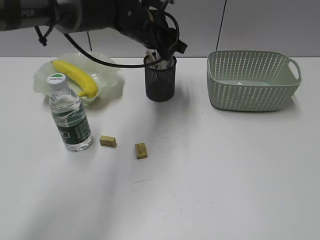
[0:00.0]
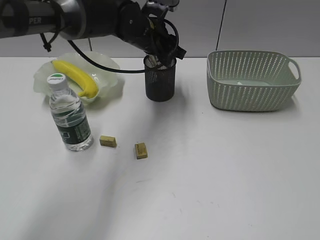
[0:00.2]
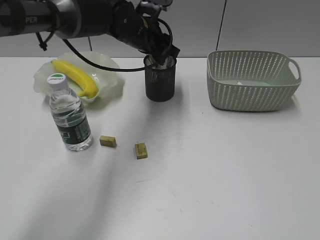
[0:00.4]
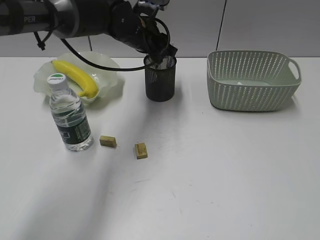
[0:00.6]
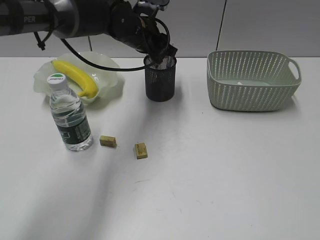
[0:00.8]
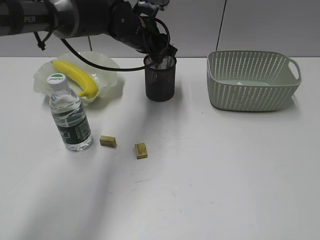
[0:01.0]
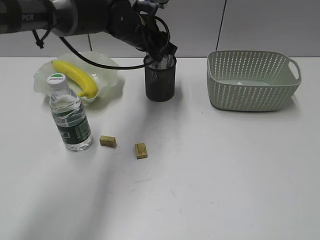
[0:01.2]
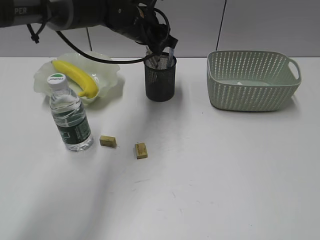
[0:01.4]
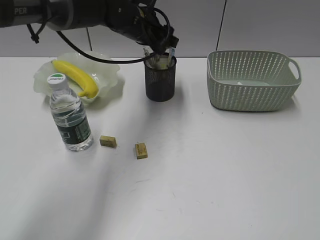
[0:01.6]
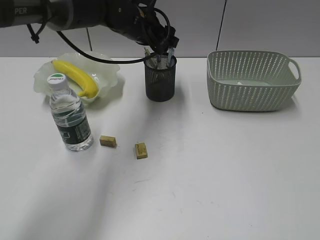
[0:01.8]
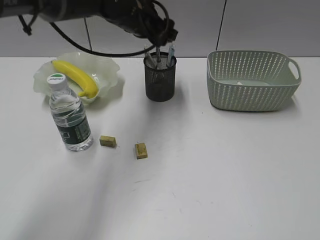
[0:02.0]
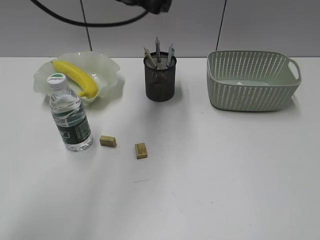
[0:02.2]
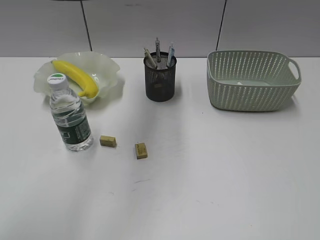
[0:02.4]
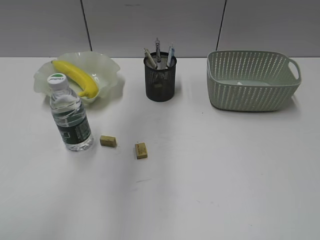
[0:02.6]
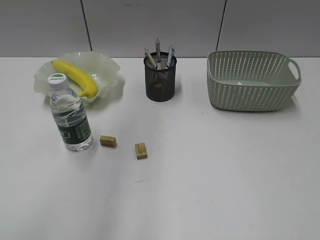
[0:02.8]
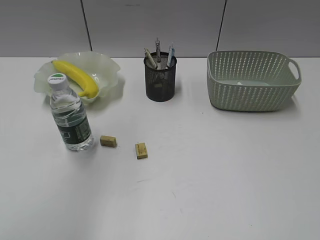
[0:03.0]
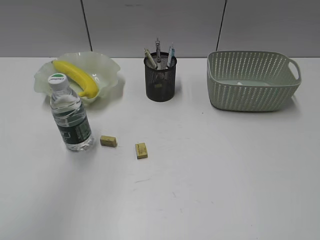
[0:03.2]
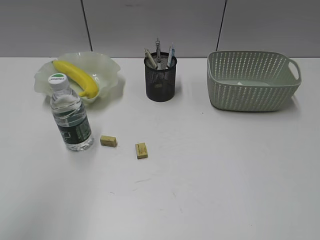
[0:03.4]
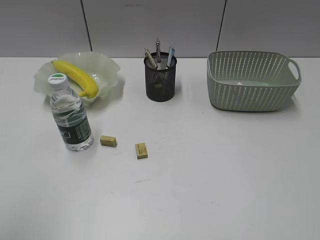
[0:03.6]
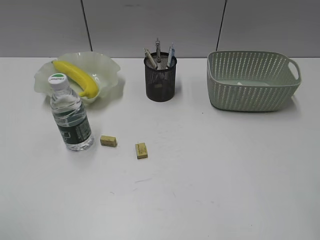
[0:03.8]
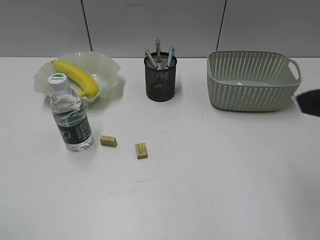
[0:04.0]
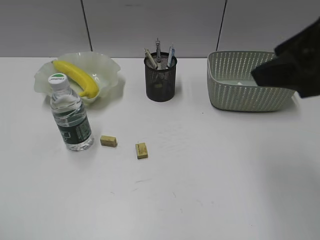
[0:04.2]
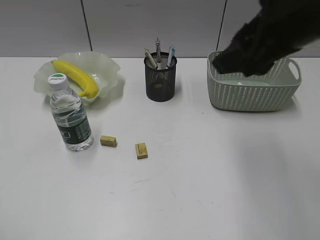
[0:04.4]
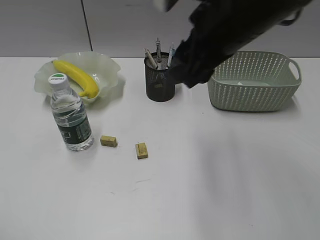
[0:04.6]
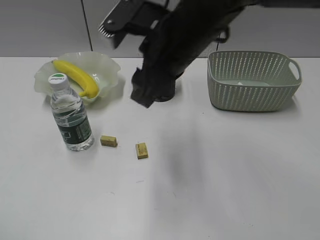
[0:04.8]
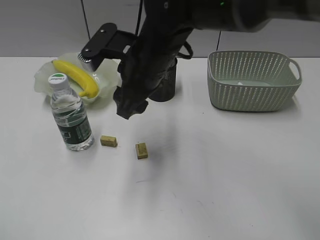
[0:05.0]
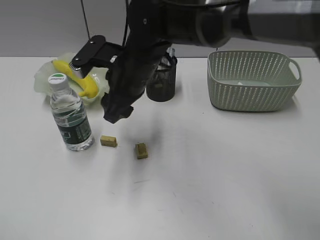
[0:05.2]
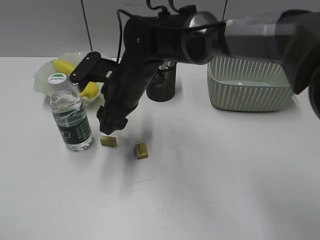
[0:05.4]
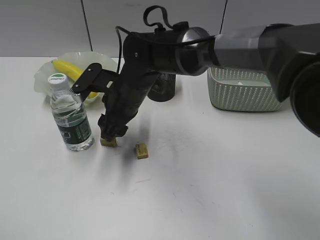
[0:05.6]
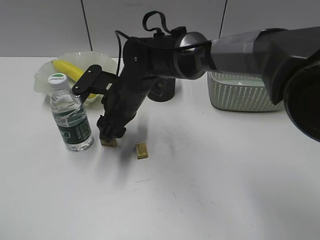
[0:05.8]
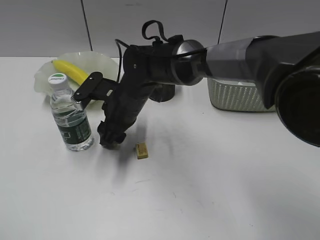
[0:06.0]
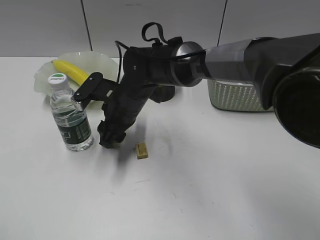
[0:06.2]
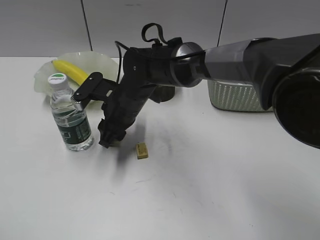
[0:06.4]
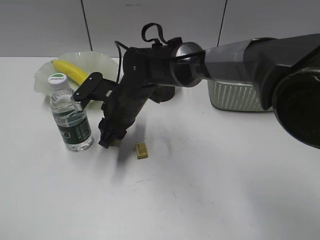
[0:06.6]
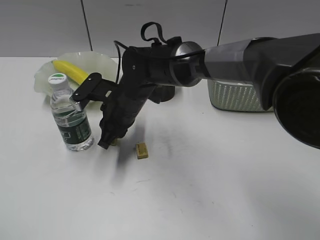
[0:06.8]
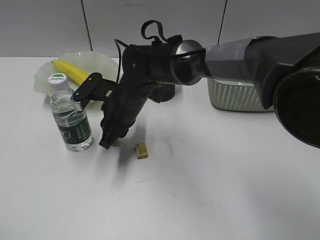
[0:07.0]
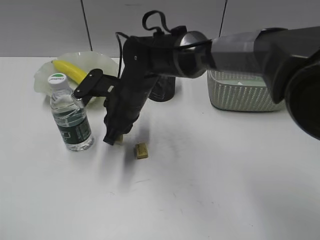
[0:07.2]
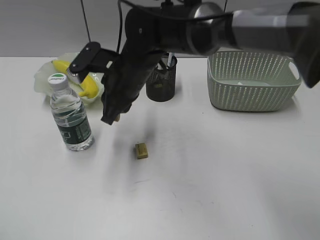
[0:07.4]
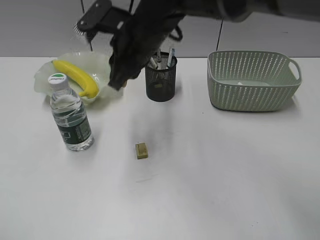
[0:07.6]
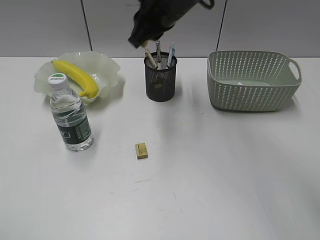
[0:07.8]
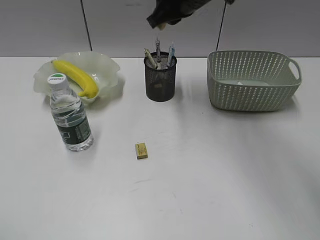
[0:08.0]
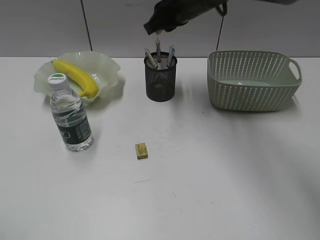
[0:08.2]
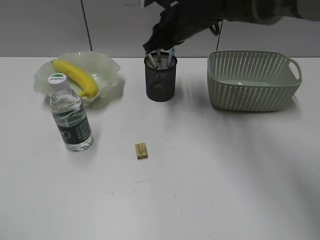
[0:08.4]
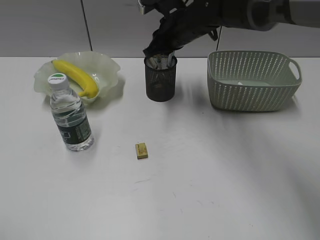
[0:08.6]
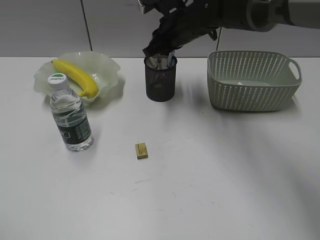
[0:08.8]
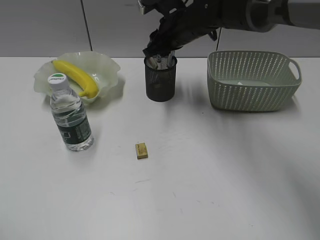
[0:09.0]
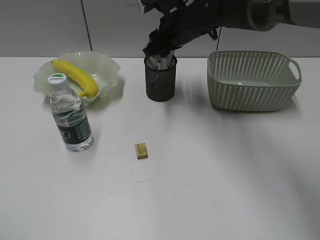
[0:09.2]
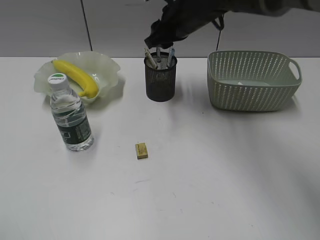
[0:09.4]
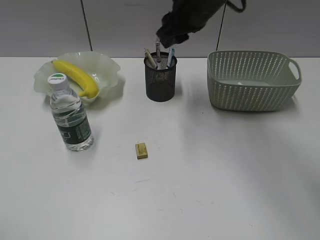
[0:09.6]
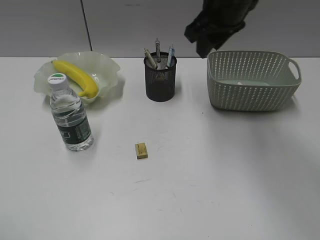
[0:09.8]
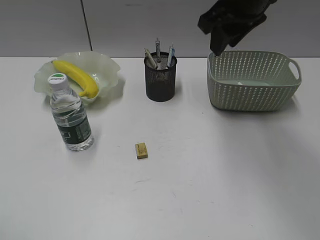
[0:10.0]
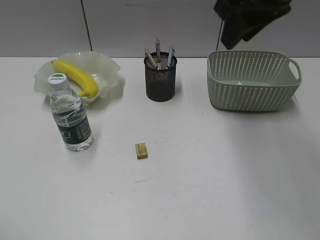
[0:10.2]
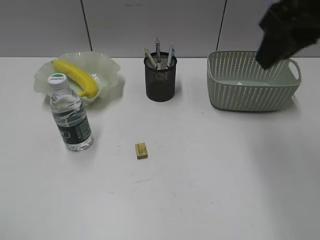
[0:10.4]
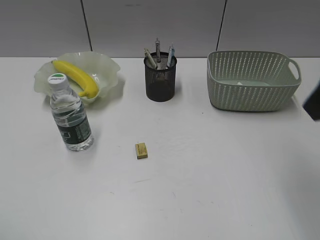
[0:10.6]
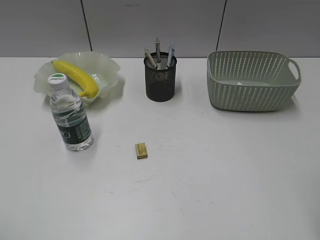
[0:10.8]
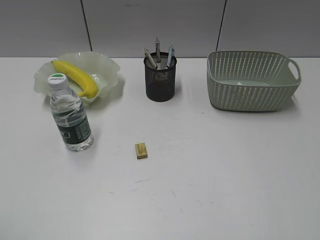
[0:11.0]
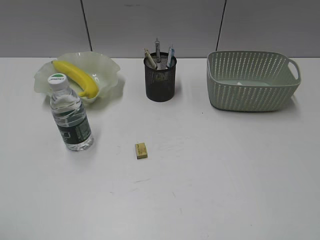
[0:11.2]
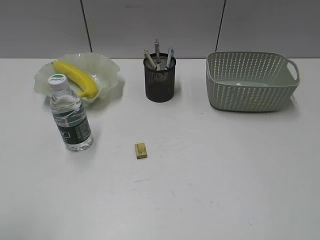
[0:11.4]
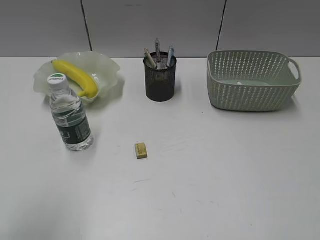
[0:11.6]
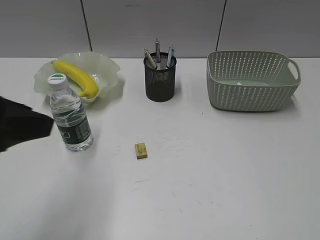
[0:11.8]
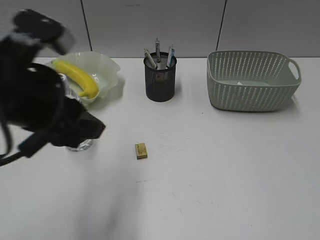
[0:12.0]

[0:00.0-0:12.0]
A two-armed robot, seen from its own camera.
Step, 0.0 to 1.6 s: Place the eraser in pen holder with left gripper.
Step, 1.8 to 6.8 s: Grasp the eraser with right gripper.
Step, 7.0 to 9.0 s: Place the eraser in pen holder with right gripper.
0.0 to 1.6 s: There are only small adjustments of the grippers.
1.6 to 3.0 s: The left gripper travels upward, backward and to the left by approximately 40 cm.
3.0 to 4.4 s: The right gripper heads forward and to the left, covering roughly 30 cm, while the left gripper moves downward, backward and to the left, roughly 35 cm.
4.4 to 6.0 s: The right gripper goes some 35 cm downward, to the left and forward.
6.0 to 7.6 s: The right gripper shifts some 10 cm upward, and closes.
7.6 to 9.0 s: The right gripper heads forward and to the right, covering approximately 15 cm.
9.0 to 10.4 s: The right gripper moves backward, upward and to the right, approximately 25 cm.
10.4 to 12.0 s: The left gripper is displaced forward and to the right by approximately 25 cm. Meanwhile the right gripper moves backward and to the right, some 30 cm.

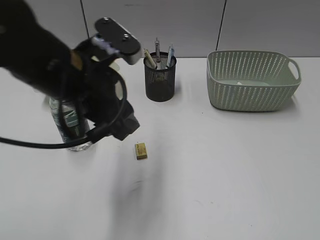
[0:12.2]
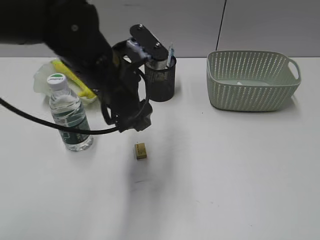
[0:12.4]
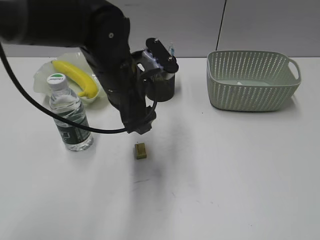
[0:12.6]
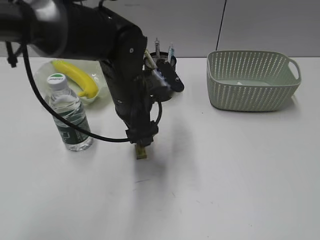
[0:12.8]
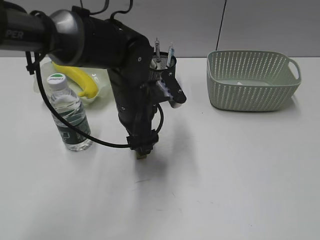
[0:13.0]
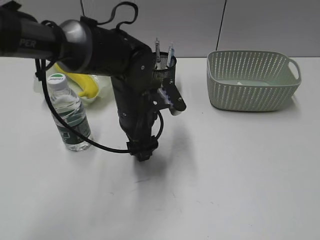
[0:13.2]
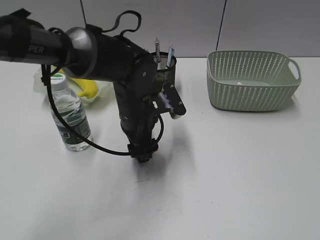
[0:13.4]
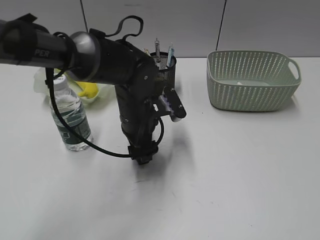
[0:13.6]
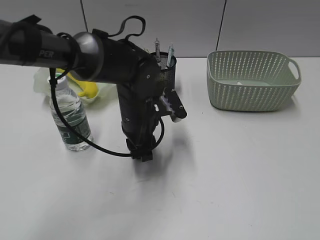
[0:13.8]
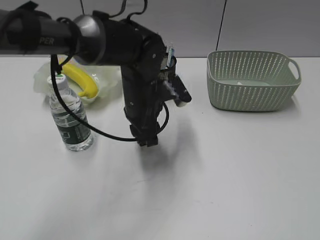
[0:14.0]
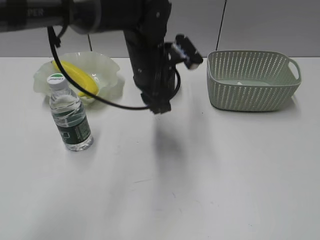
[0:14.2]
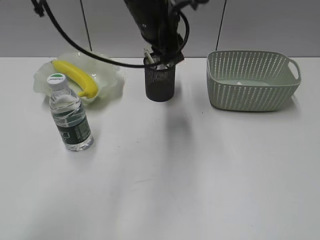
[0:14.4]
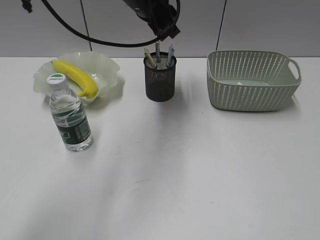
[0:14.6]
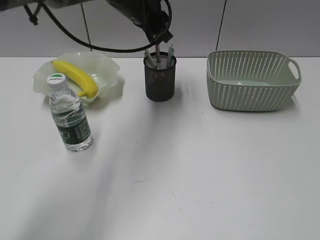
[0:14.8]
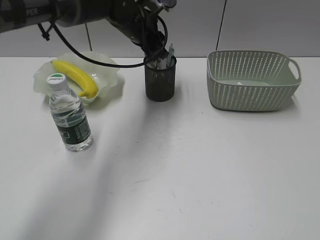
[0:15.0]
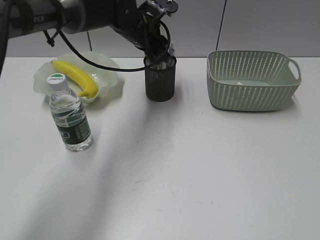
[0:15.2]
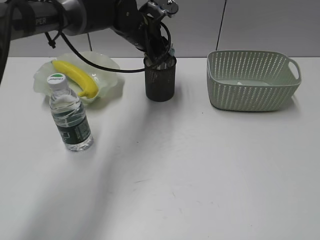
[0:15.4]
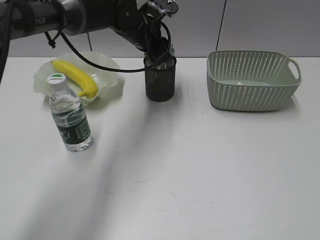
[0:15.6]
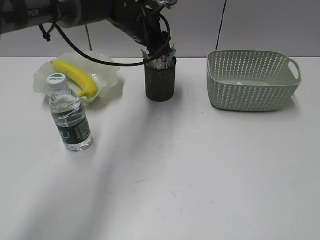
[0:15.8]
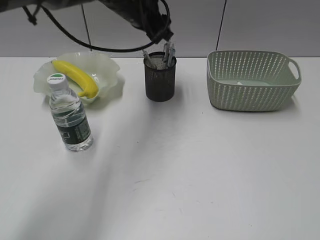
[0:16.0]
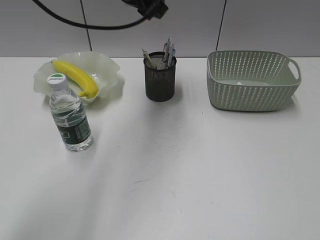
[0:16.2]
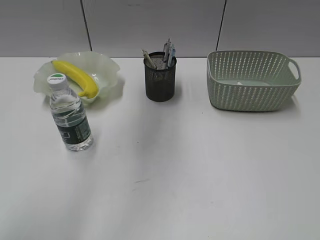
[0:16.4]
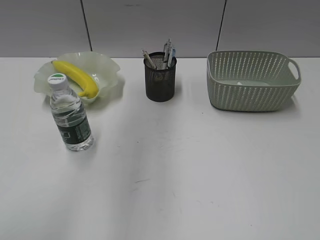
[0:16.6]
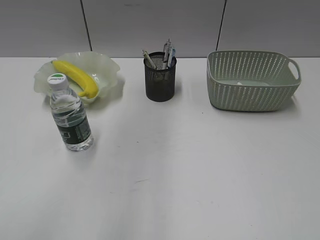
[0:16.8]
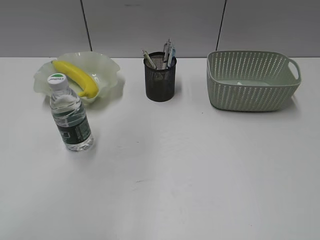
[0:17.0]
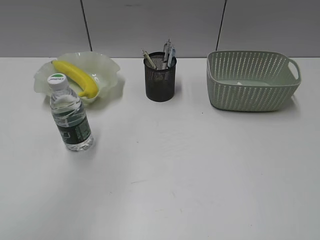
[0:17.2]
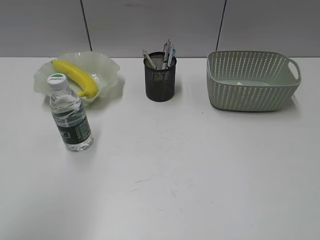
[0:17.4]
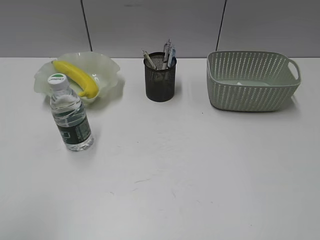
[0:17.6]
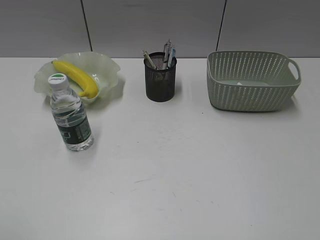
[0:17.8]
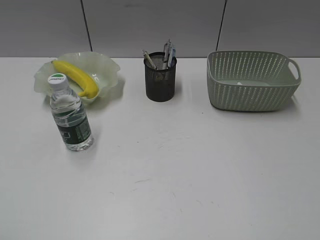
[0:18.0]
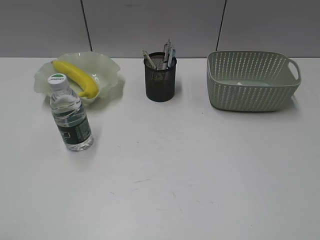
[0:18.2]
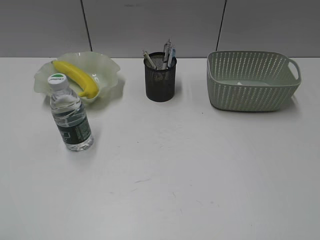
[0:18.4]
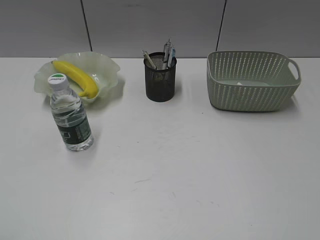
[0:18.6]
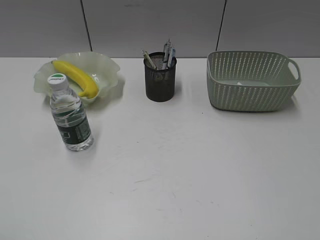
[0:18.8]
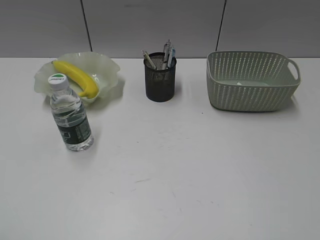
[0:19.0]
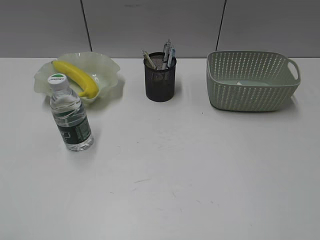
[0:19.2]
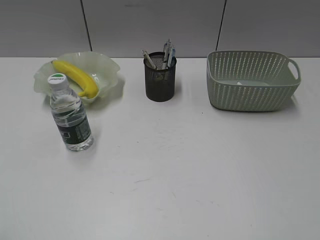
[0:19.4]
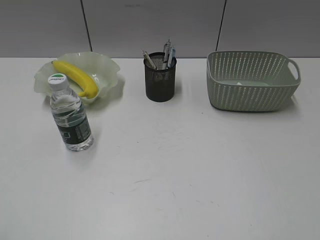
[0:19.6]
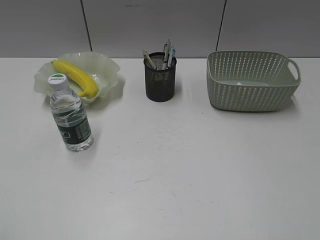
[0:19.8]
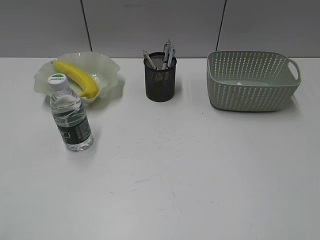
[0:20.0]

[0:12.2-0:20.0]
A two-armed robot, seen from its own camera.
Step, 14.0 to 15.8 s: Place the eraser in pen holder with left gripper.
12.2 to 13.8 s: The left gripper moves downward, forward and to the right, roughly 20 cm.
13.8 to 15.4 s: The left gripper moves forward and upward, some 15 cm.
15.4 to 16.8 s: The left gripper travels upward and backward by some 30 cm.
16.8 to 18.4 s: The left gripper moves backward, to the left and downward, about 40 cm.

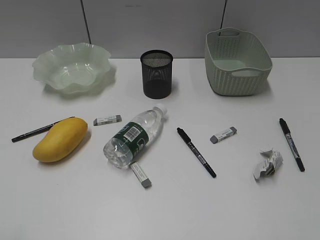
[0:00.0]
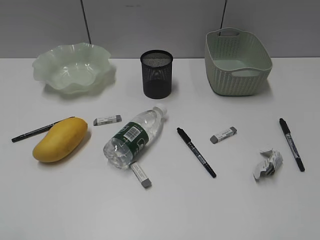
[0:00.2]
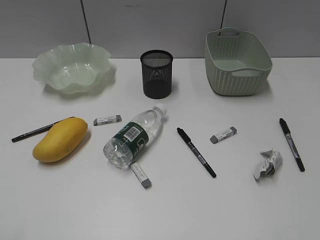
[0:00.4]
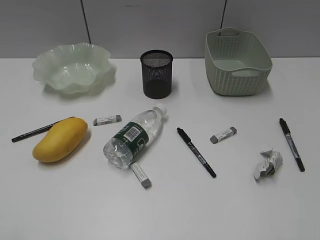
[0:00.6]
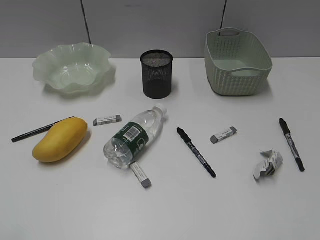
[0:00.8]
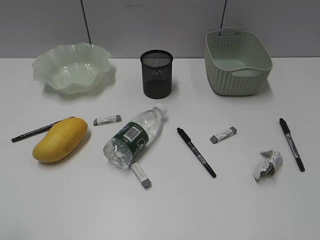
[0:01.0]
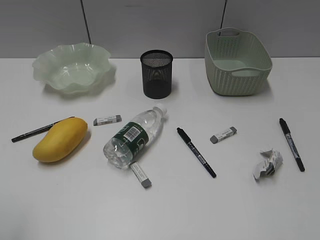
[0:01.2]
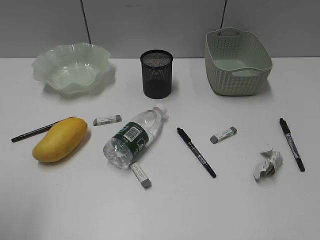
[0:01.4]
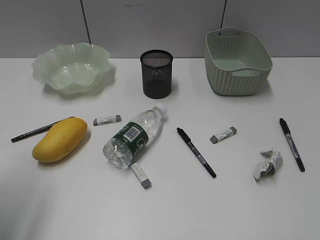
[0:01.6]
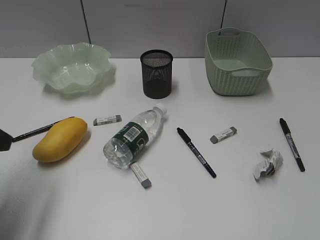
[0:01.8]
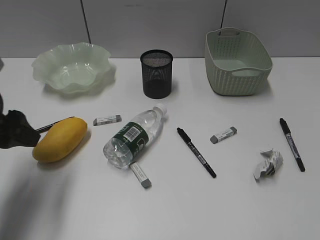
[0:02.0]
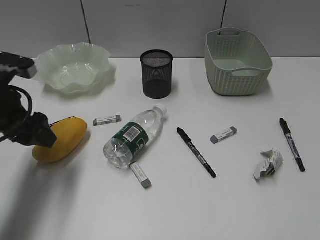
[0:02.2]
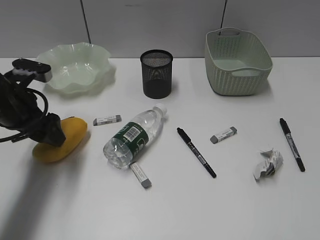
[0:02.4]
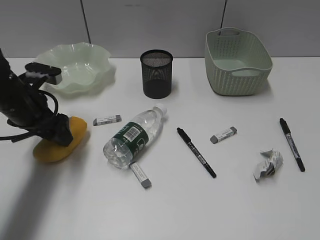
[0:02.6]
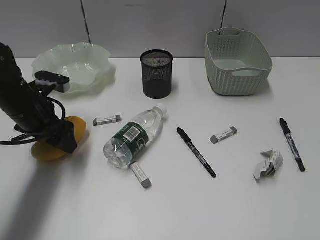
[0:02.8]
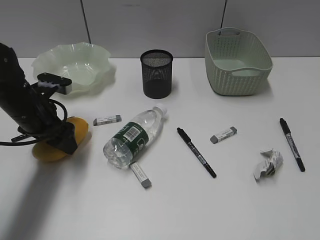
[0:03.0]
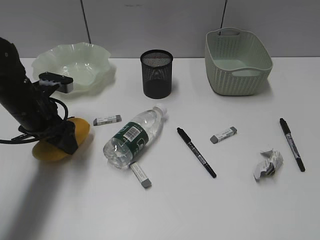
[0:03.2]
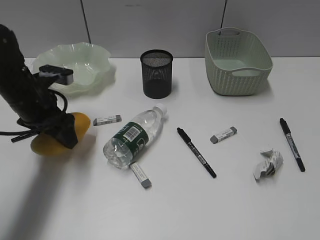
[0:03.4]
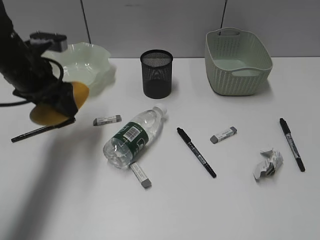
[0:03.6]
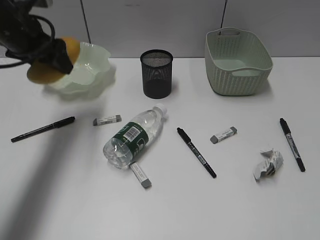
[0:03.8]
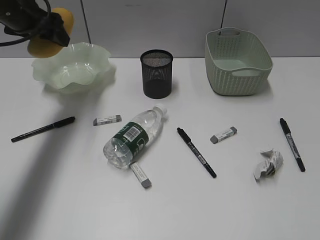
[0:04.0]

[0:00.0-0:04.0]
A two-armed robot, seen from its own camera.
Step, 1.8 to 3.0 s: Grasp the mango with left gripper.
1.4 to 2.6 s: The left gripper moves forward and downward, some 25 cm.
2.6 to 4.0 s: The left gripper moves upward and forward, some 15 cm.
